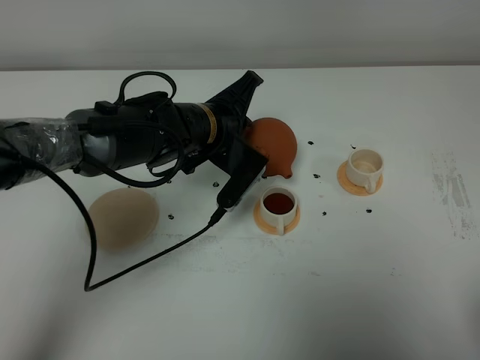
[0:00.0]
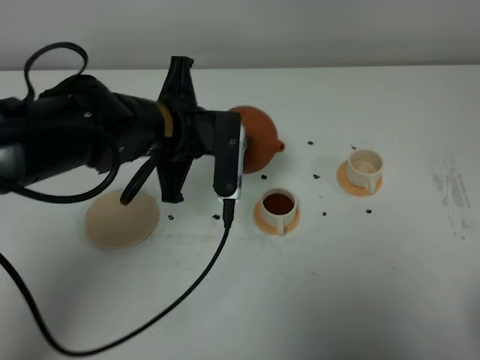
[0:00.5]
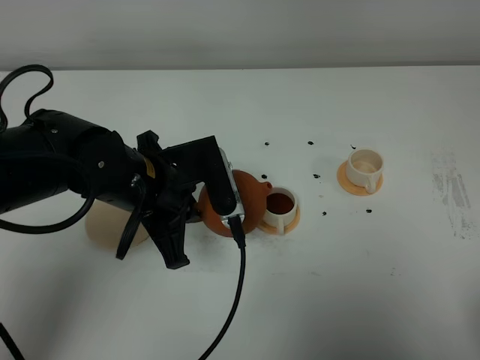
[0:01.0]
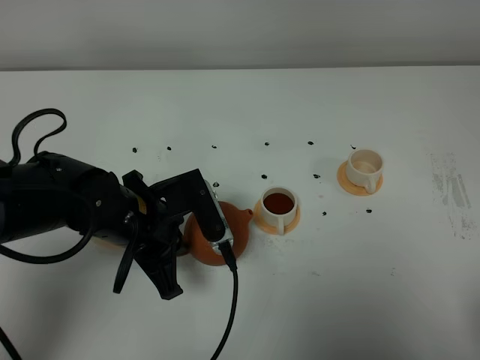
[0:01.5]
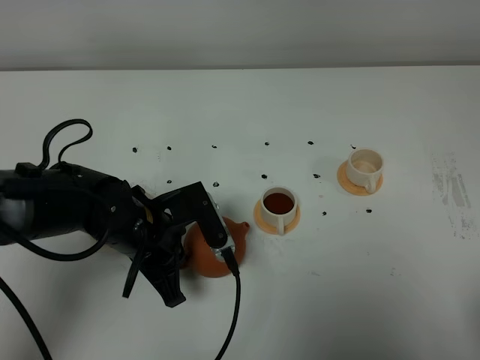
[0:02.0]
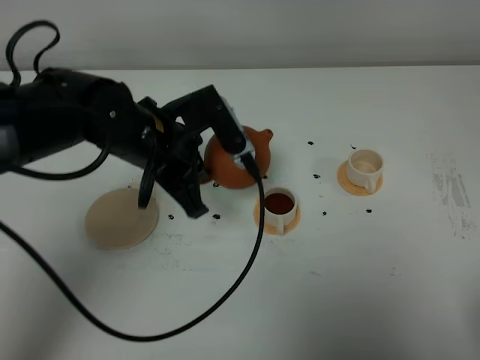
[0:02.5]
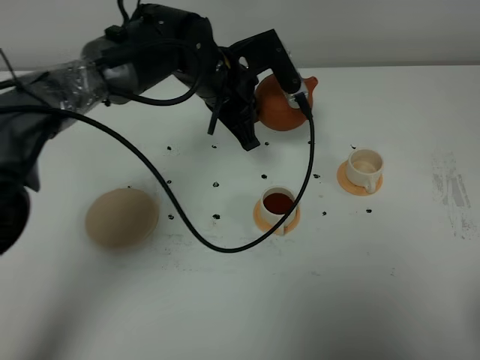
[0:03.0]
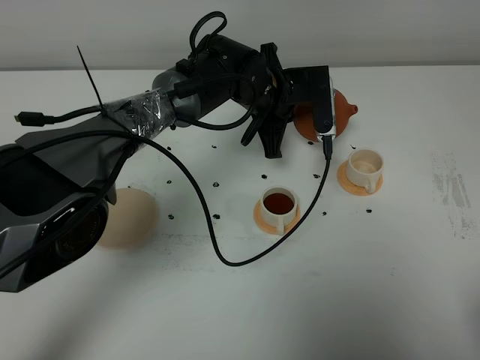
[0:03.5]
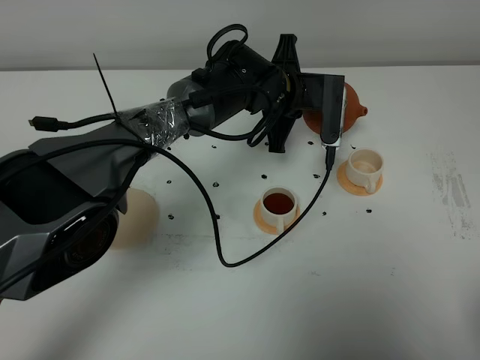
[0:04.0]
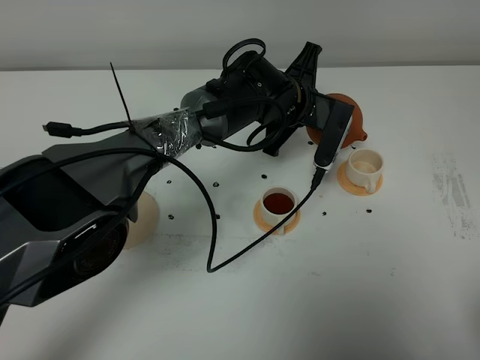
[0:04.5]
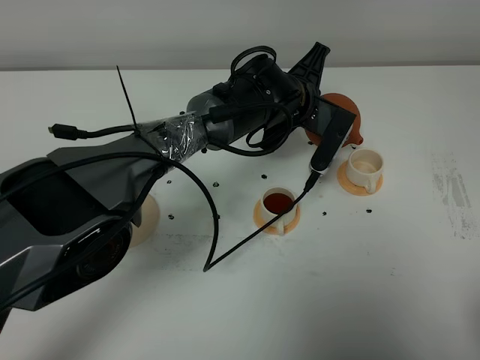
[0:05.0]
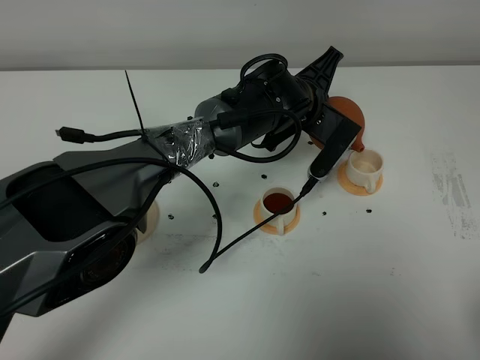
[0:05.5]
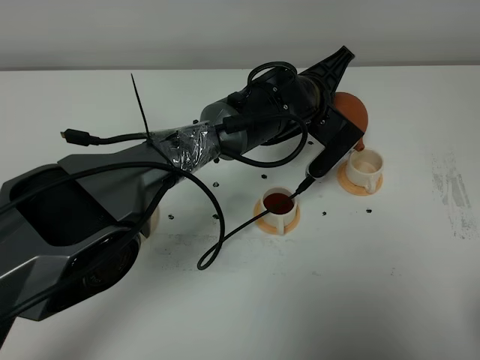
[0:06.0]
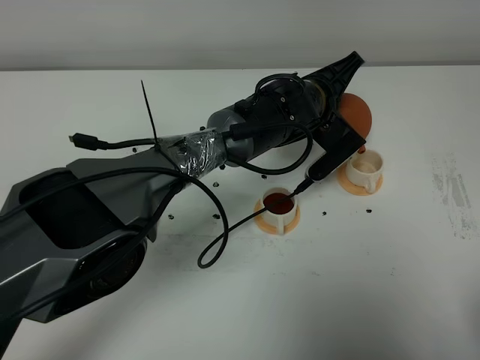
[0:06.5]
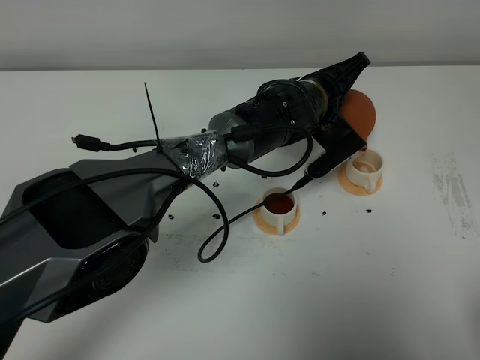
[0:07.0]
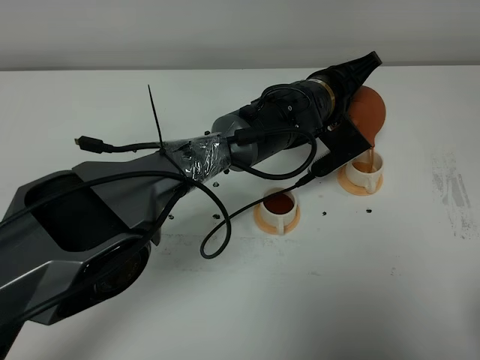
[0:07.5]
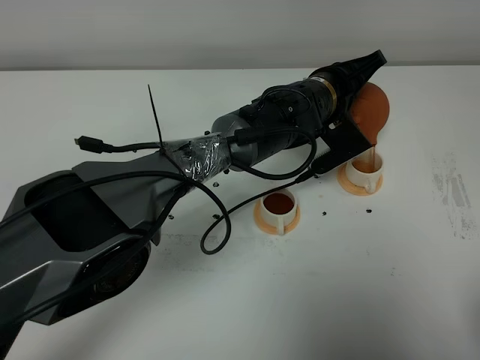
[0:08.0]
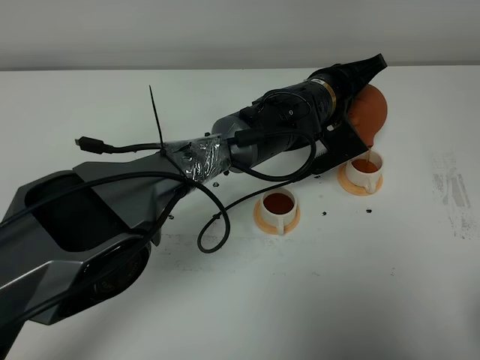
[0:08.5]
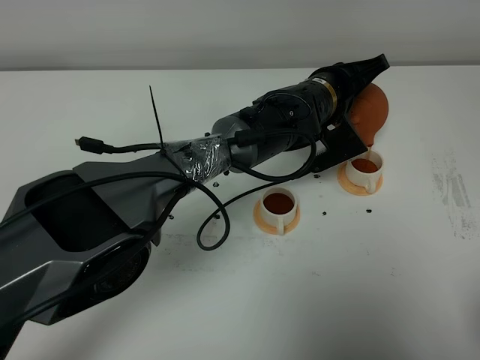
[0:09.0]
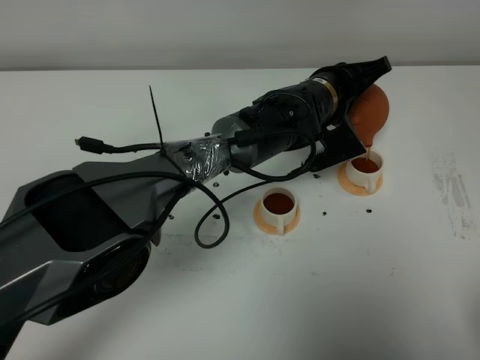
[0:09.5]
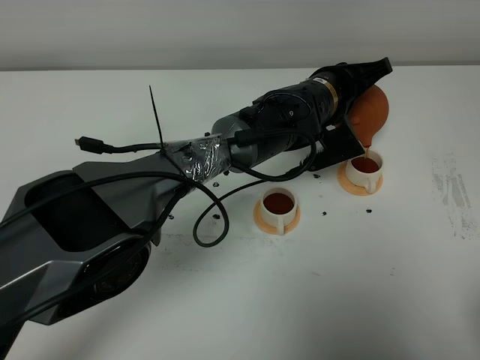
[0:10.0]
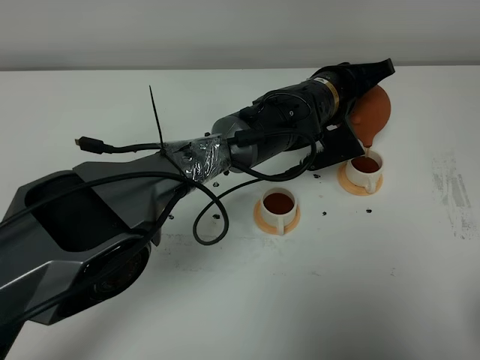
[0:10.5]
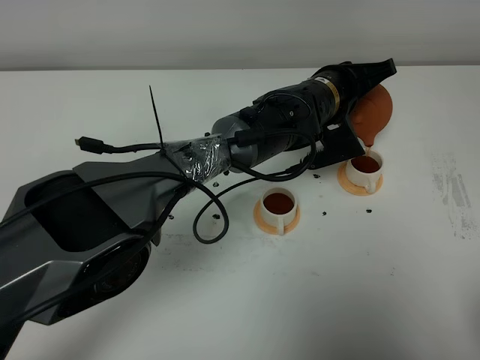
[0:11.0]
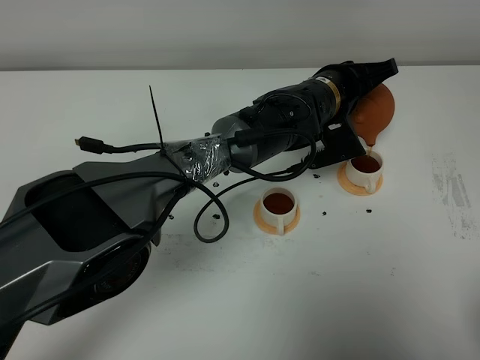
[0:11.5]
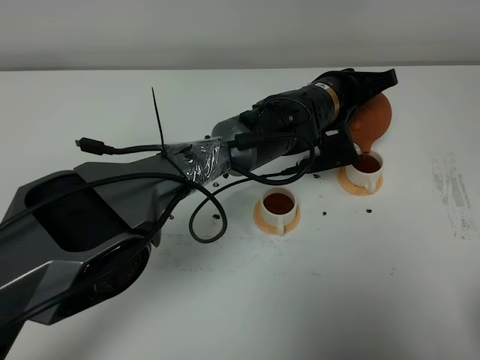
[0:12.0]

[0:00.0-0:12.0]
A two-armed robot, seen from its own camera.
Task of the whole recording: grasp the brown teapot and pour the tea into the two white teacups one by one, put the brown teapot back in its original place.
0.0 to 2.0 s: The left gripper heads backward and to the left, covering approximately 15 cm.
2.0 to 4.0 s: The left gripper travels forward and to the right by approximately 25 cm.
6.0 to 8.0 s: The grippers move only a little.
8.0 to 12.0 s: The grippers move only a little.

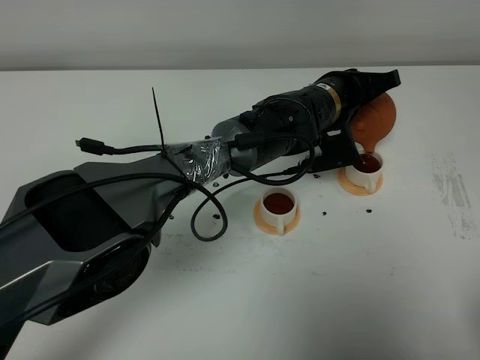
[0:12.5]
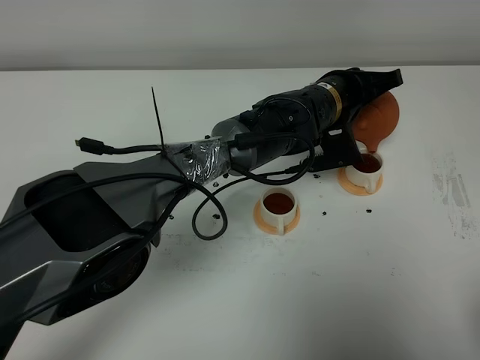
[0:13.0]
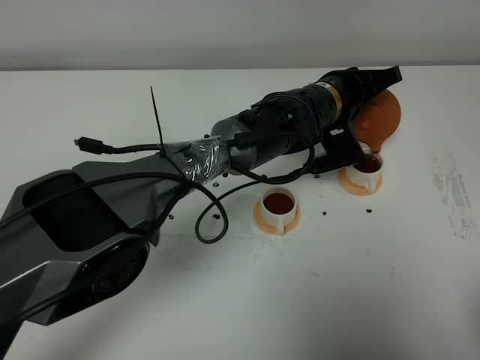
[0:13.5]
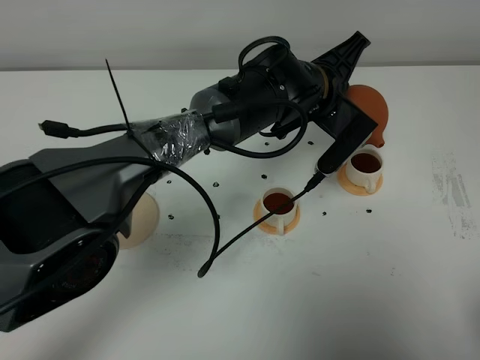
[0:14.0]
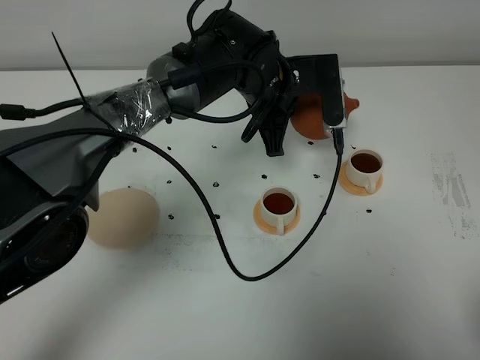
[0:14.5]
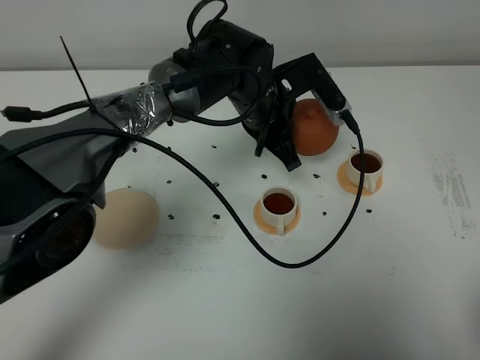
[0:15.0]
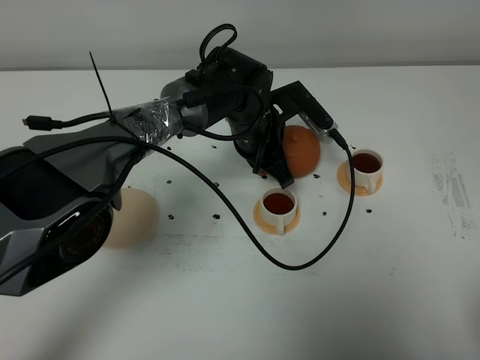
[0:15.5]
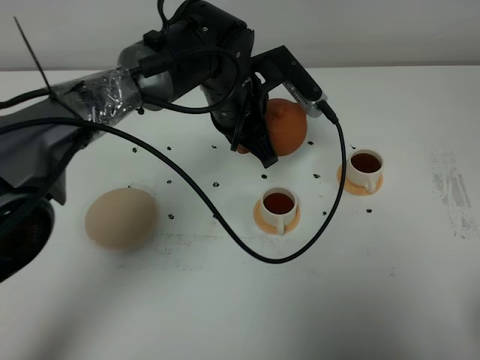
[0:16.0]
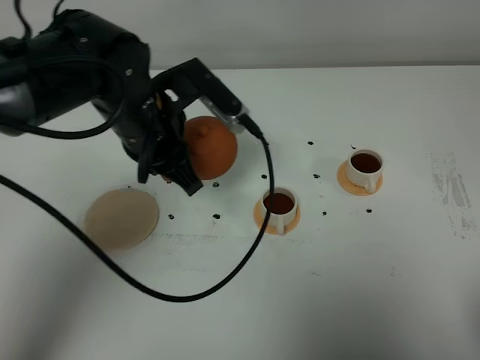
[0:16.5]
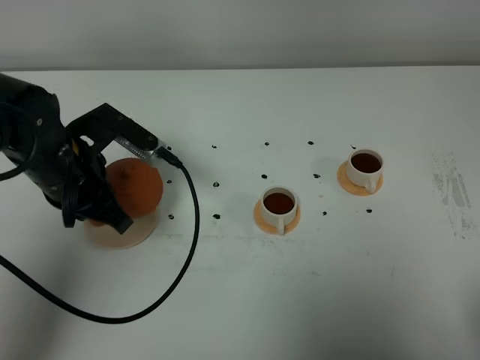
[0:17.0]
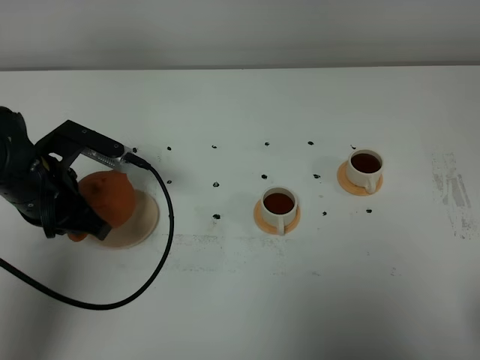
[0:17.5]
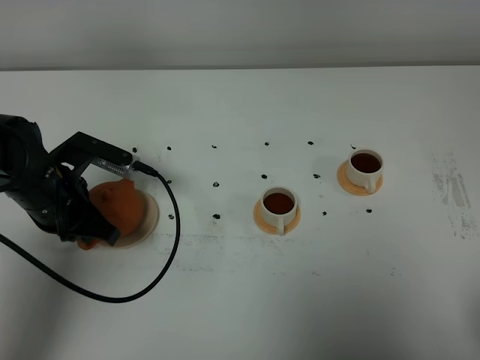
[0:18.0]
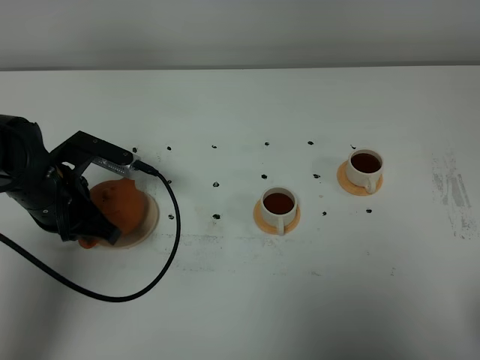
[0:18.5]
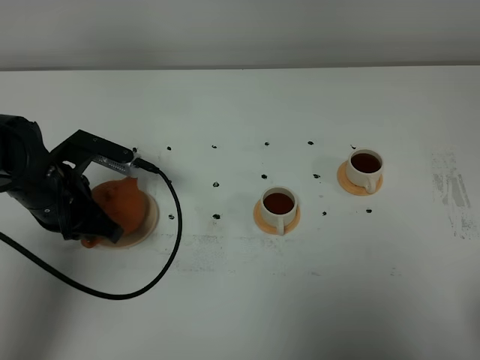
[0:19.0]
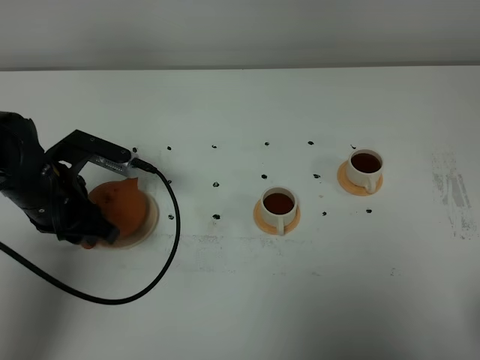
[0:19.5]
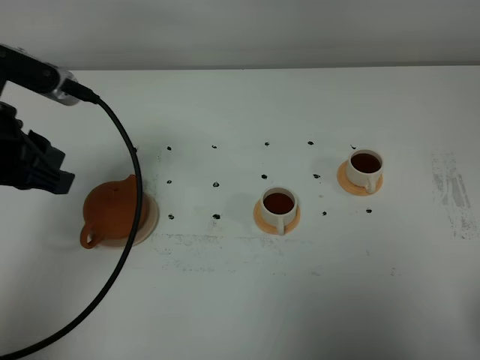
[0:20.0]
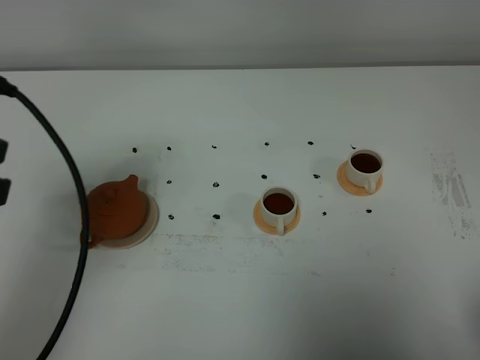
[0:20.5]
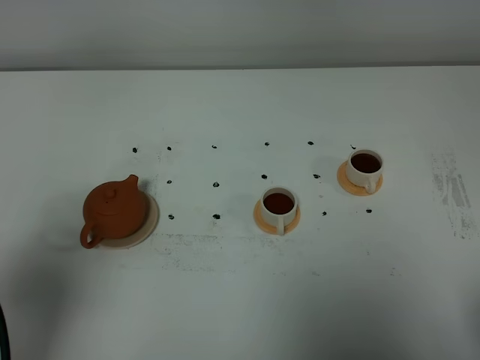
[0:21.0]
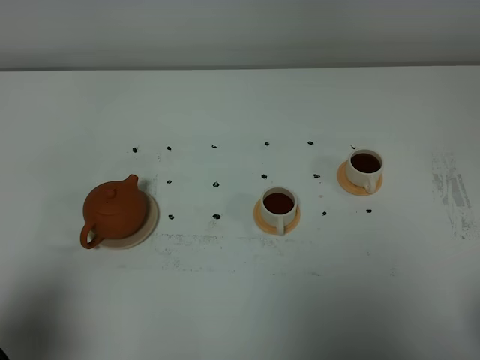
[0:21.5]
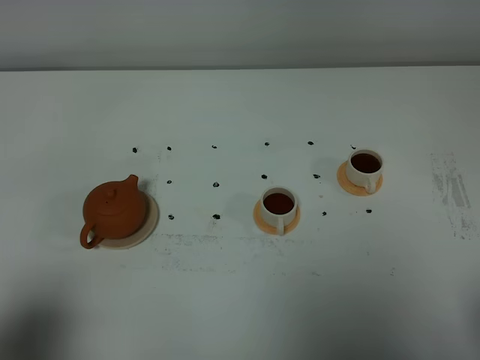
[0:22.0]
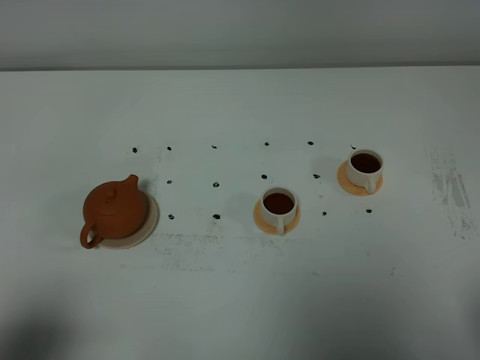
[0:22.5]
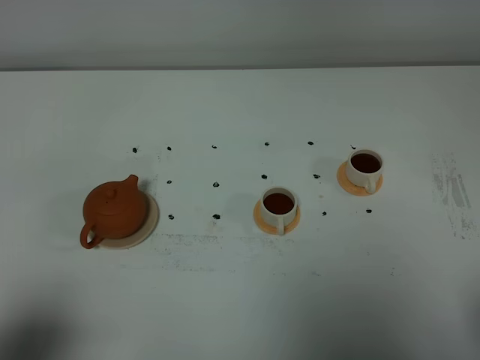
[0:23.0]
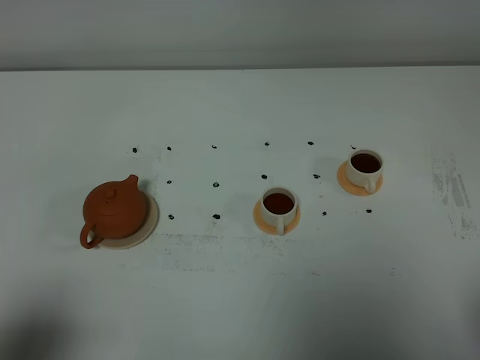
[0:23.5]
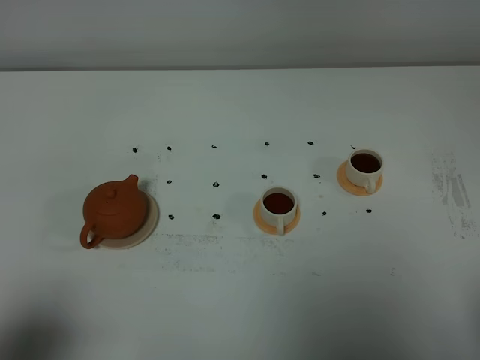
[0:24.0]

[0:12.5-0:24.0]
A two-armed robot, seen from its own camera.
Task of the whole recording: grasp the brown teapot and pour the tea into the two white teacups one by one, put the brown teapot back in its original place.
12.5 to 14.5 s: The left gripper heads to the left, covering some 10 cm.
14.5 to 16.5 s: The left gripper moves to the left and backward, approximately 15 cm.
16.5 to 18.5 s: The left gripper shifts about 15 cm to the left and downward.
18.5 to 20.0 s: The left gripper shifts roughly 15 cm upward and backward, and opens.
20.0 to 22.0 s: The left gripper heads backward, covering roughly 25 cm.
22.0 to 24.0 s: The two grippers keep their place.

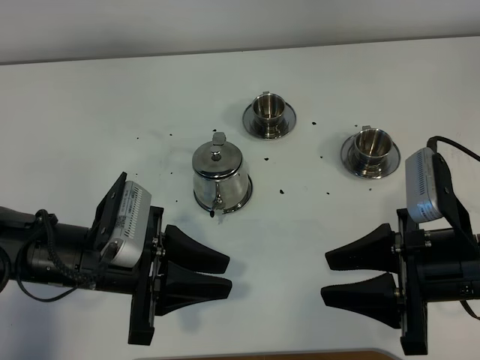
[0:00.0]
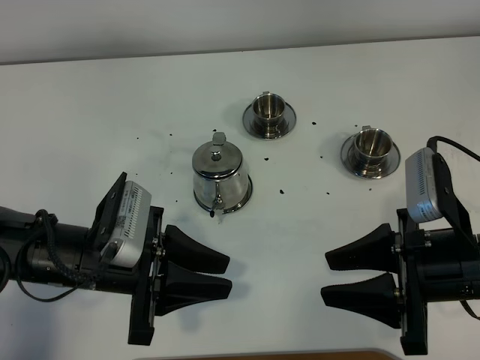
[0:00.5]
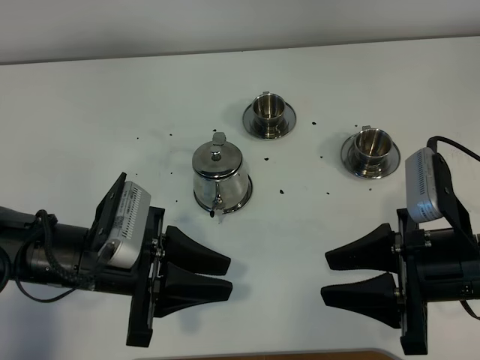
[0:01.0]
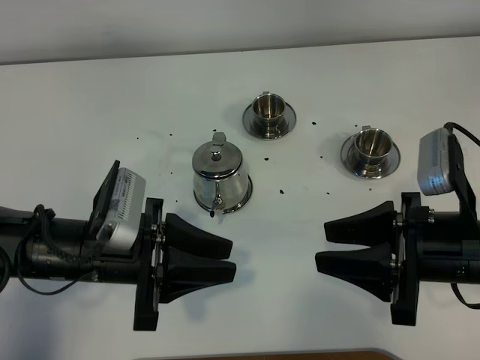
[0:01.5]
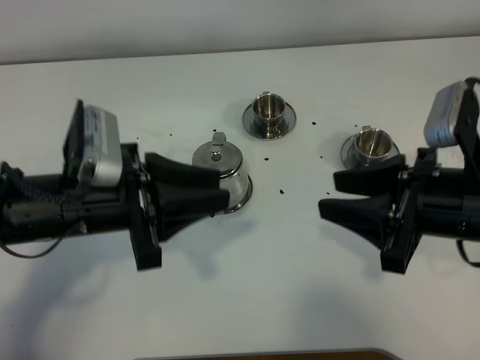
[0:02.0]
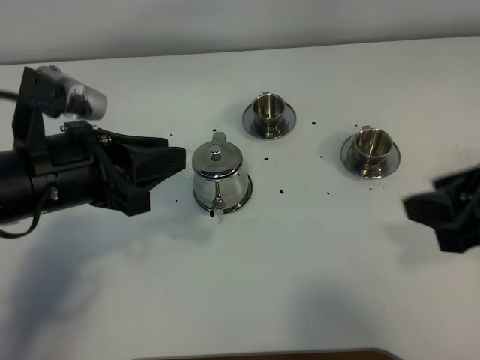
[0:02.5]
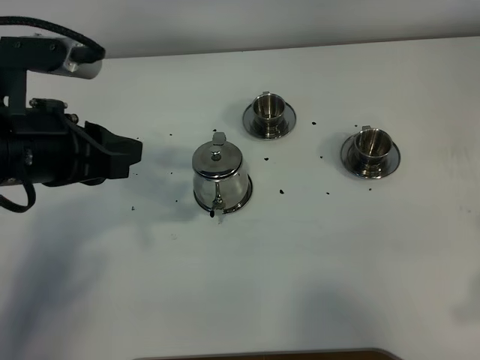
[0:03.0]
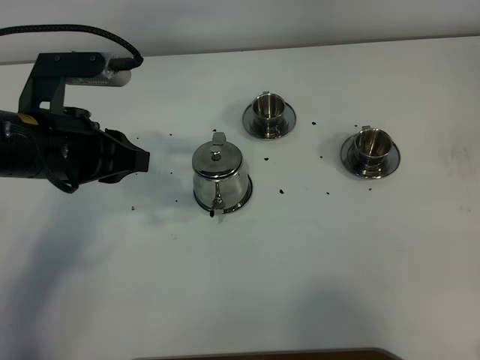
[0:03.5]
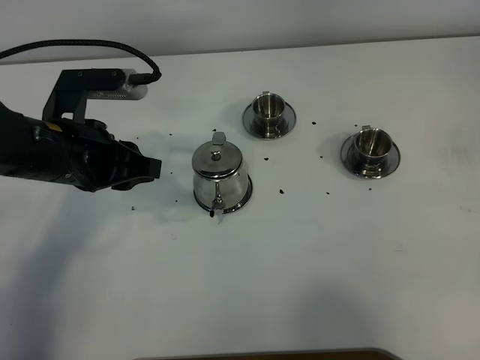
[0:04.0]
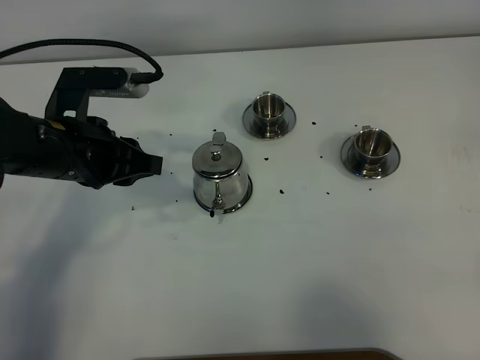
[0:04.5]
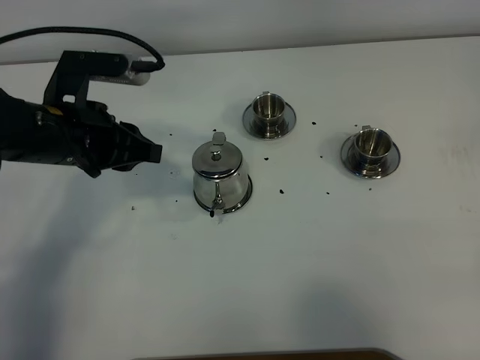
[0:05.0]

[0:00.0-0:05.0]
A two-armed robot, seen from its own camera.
Task of the whole recording: grasp the stainless steel teapot and pour the tea into the two stainless steel teacups one by one, put the stainless steel teapot back in its original place.
0.0 to 2.5 s: The grippers both shift upward by roughly 10 cm.
2.5 to 5.0 s: The left gripper is displaced forward by about 10 cm, while the right gripper travels backward and to the right by some 20 cm, and closes.
